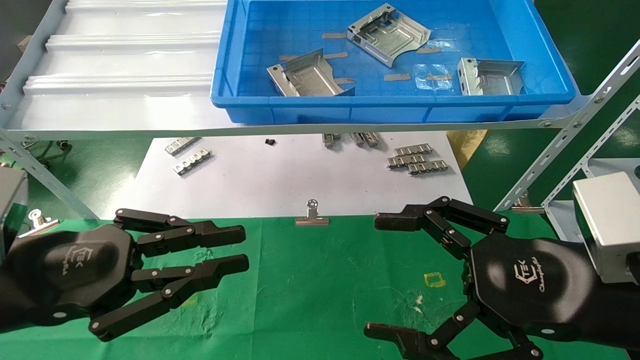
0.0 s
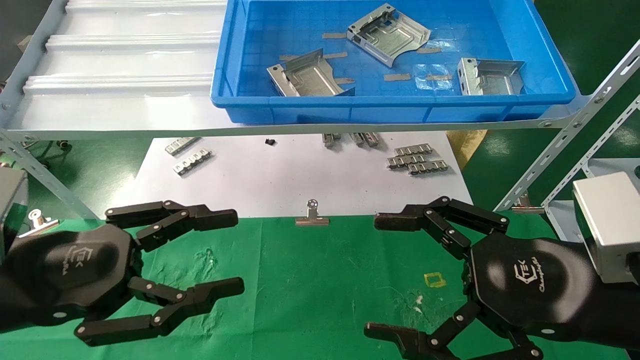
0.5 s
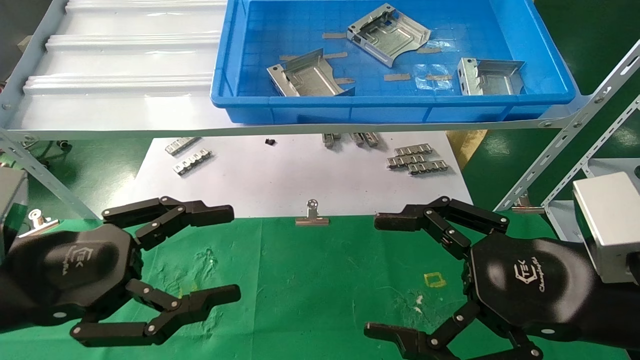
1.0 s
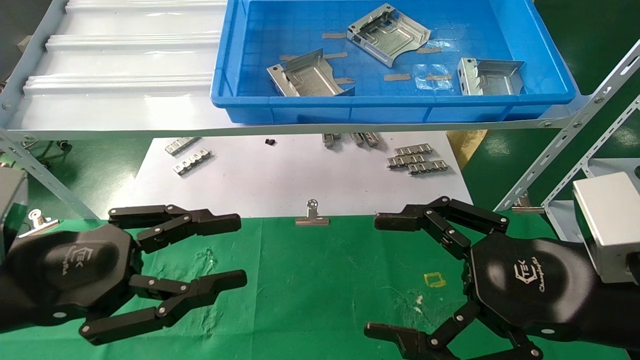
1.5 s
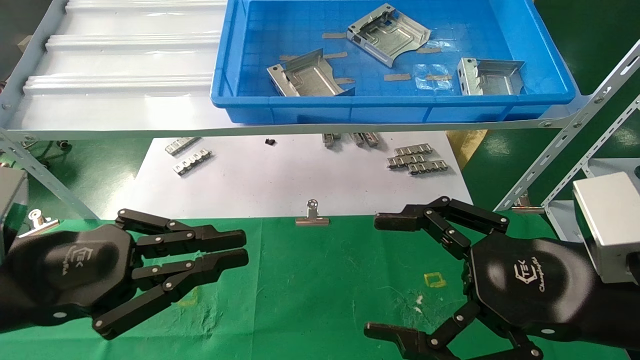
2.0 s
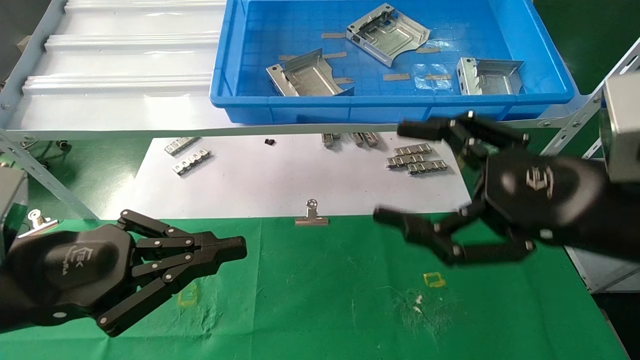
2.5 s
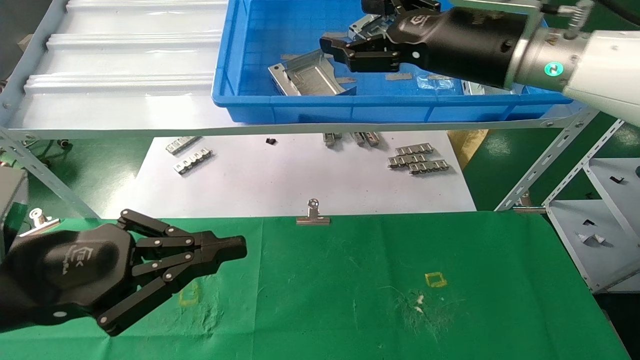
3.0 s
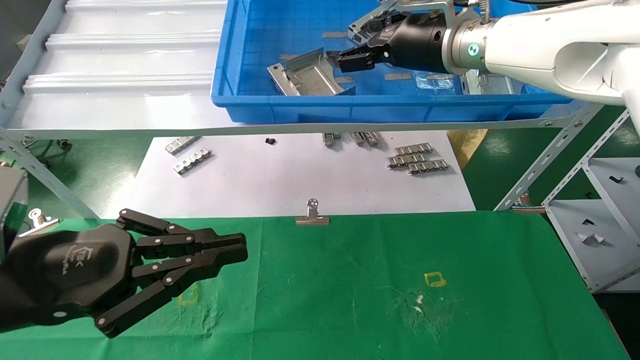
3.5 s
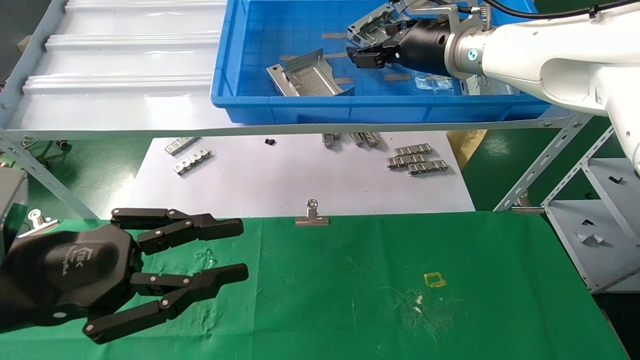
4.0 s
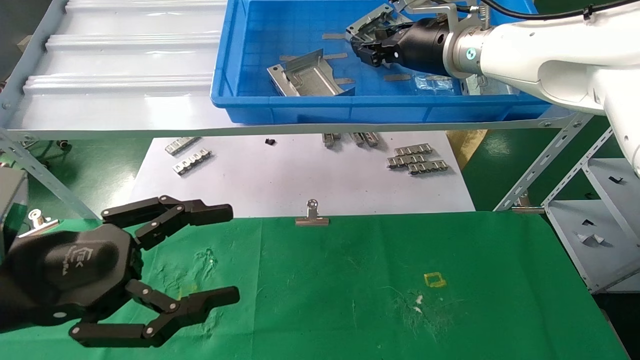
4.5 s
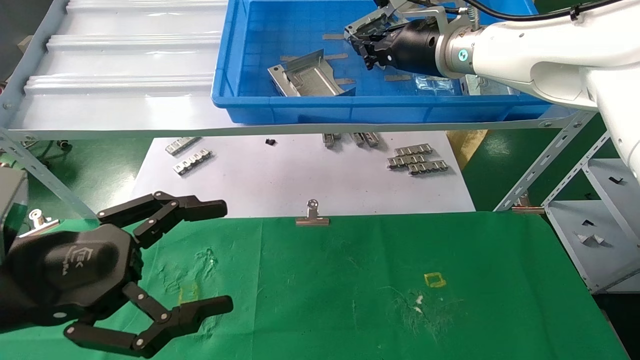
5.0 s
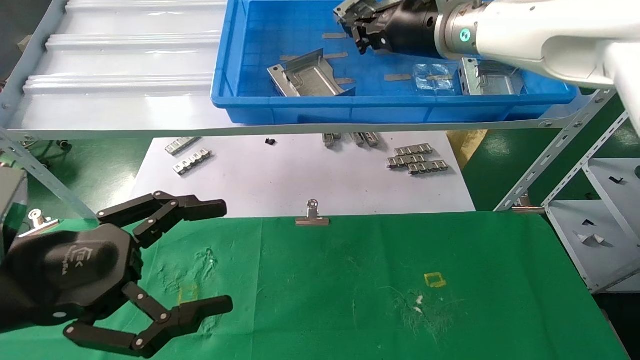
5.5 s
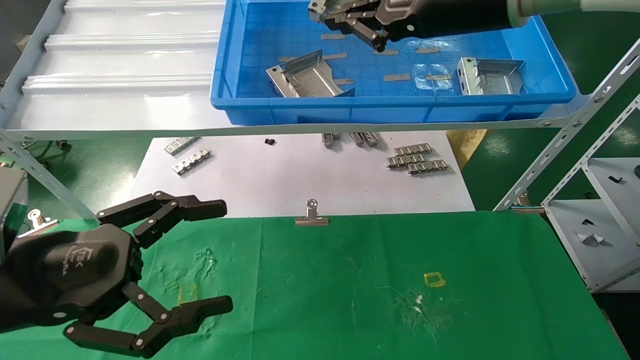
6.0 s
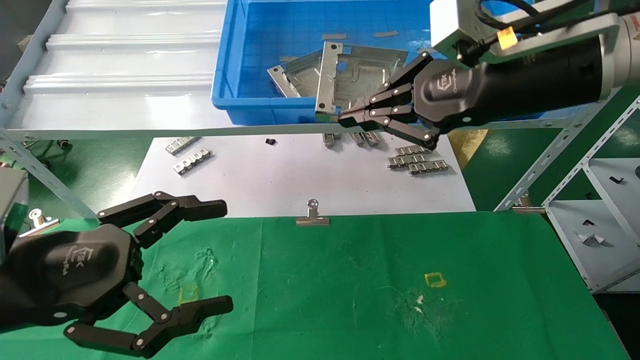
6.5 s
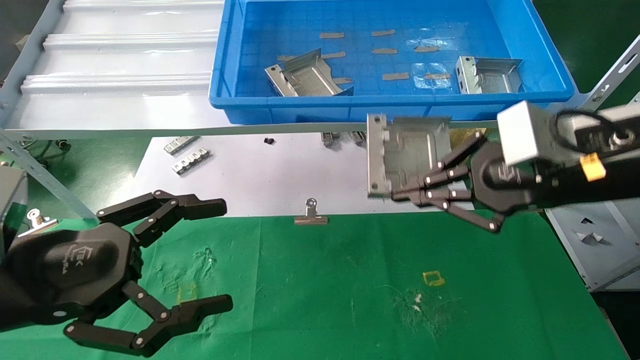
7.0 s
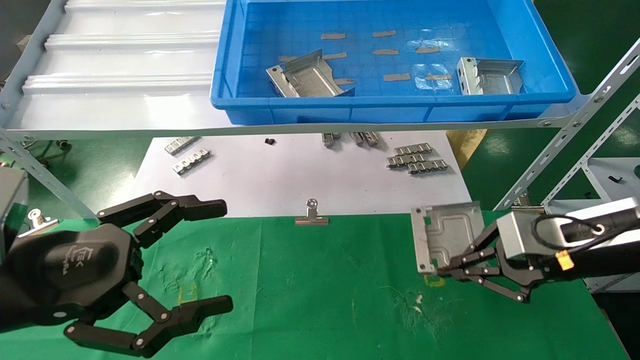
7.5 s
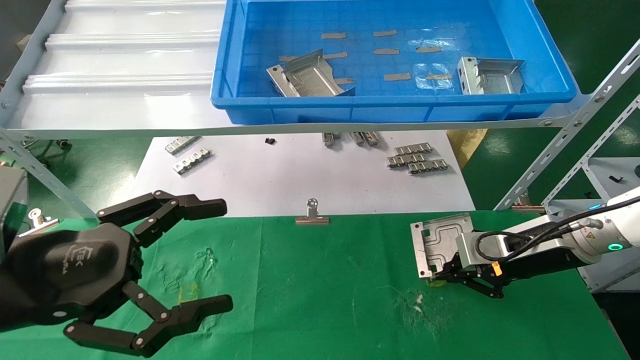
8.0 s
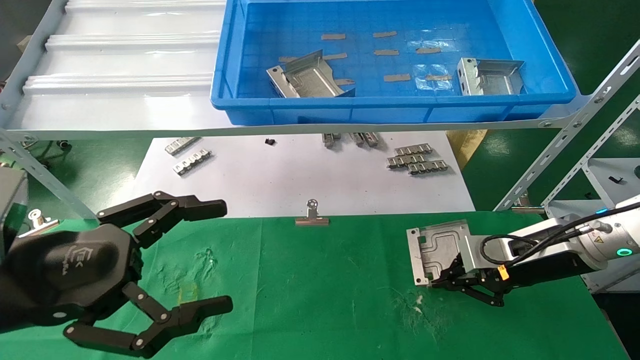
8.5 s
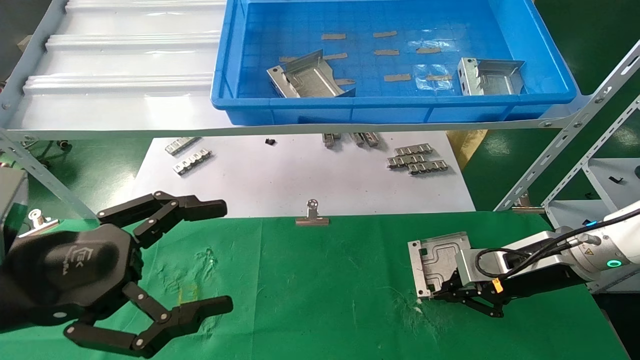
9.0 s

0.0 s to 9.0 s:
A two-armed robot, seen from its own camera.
Task of the whole recording: use the mechanical arm to pick up the parts and place them on the table.
Step, 1.5 to 6.0 s: Pick up the hard drive bracket from the feeding area.
0.0 to 2.0 s: The left gripper opens, then closes once more.
2.0 to 4.5 s: The left gripper opens up. Meanwhile the right gripper travels forward and upward by some 30 cm, and closes.
4.5 to 7.0 s: The right gripper shifts approximately 25 cm backward, to the right and downward, and closes its fingers.
7.0 to 9.0 s: The right gripper is displaced downward and forward by approximately 20 cm.

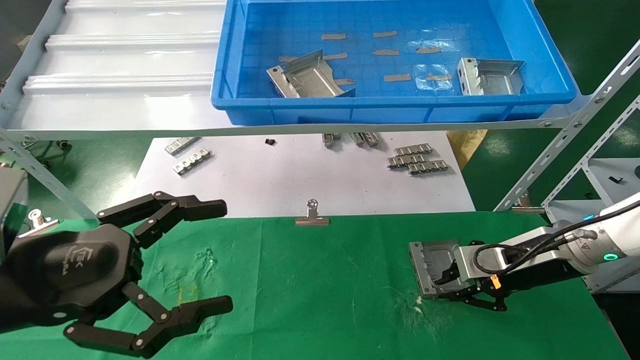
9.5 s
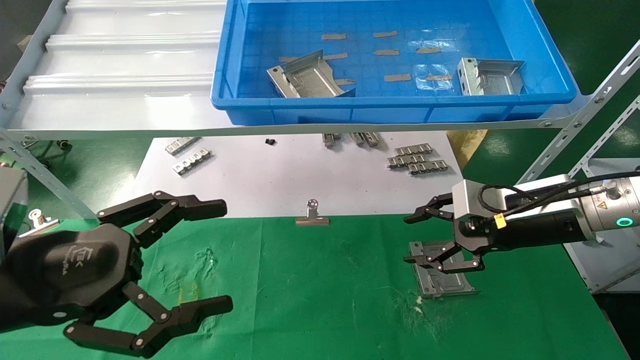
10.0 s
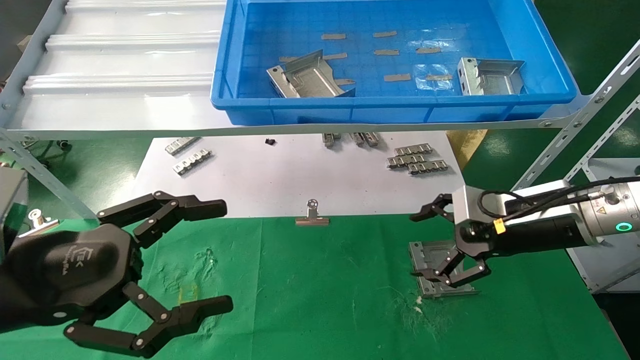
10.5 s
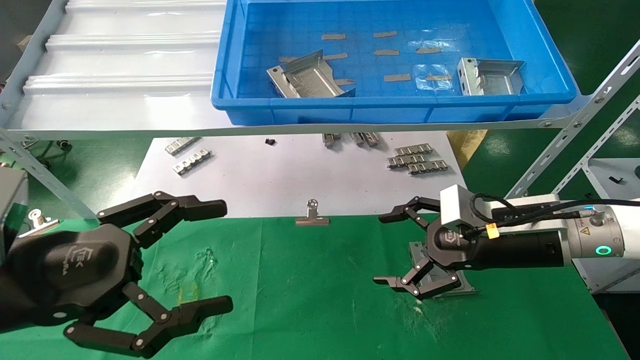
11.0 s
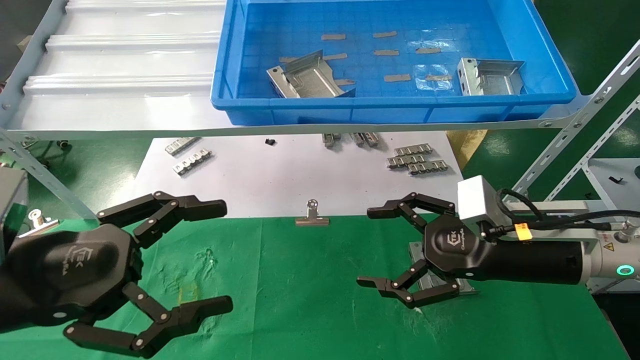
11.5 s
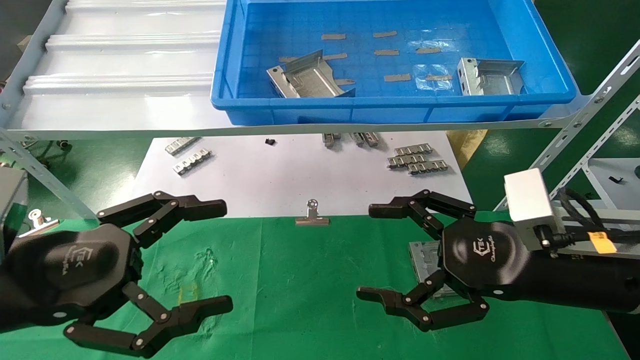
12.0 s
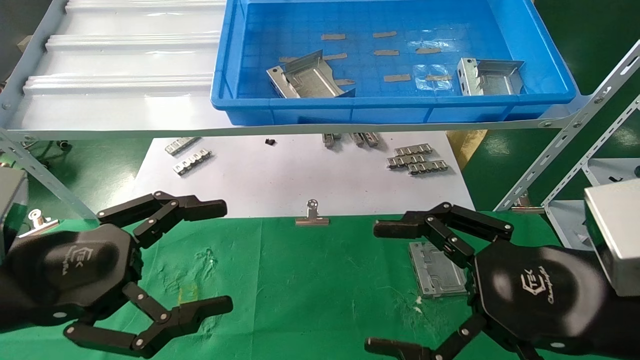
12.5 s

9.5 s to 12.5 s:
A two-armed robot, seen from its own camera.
Task of the whole recording: use the mechanical arm to pick up the parts and place them on the table.
9.5 to 11.0 s: The right gripper ends up approximately 5 cm from where it was, and opens its fingers.
11.0 to 12.5 s: The right gripper travels backward by roughly 15 cm.

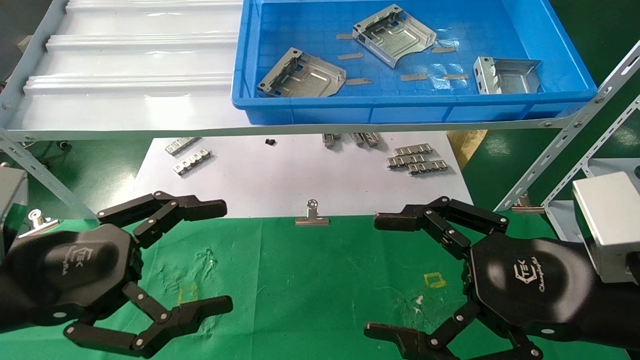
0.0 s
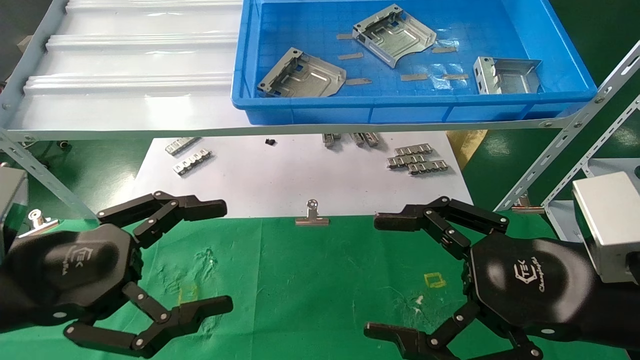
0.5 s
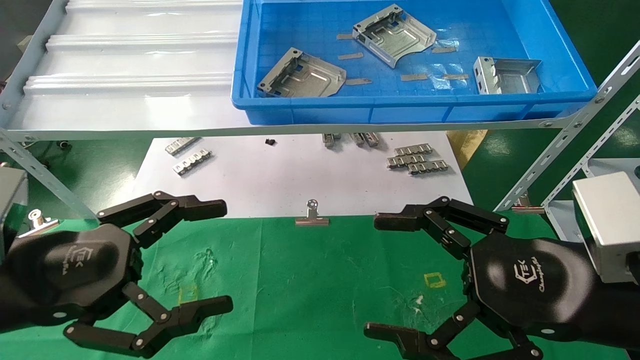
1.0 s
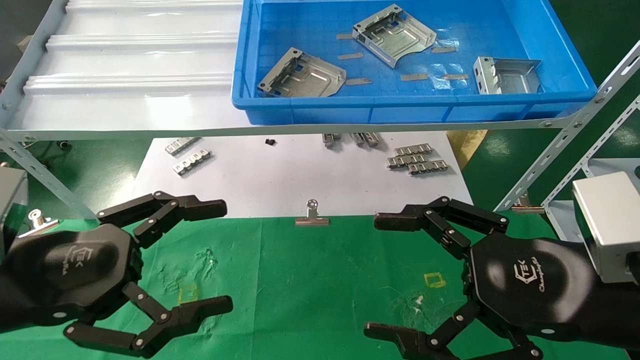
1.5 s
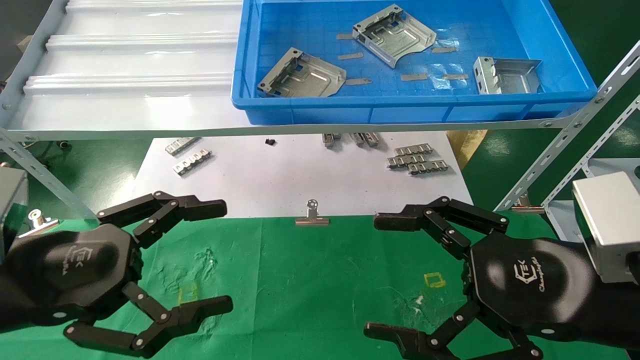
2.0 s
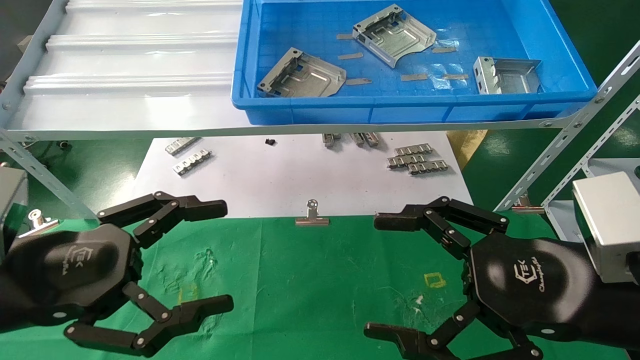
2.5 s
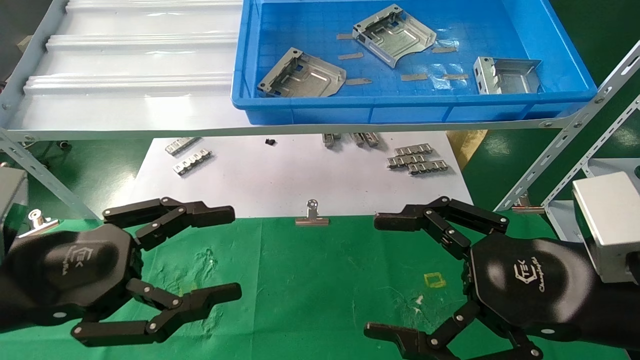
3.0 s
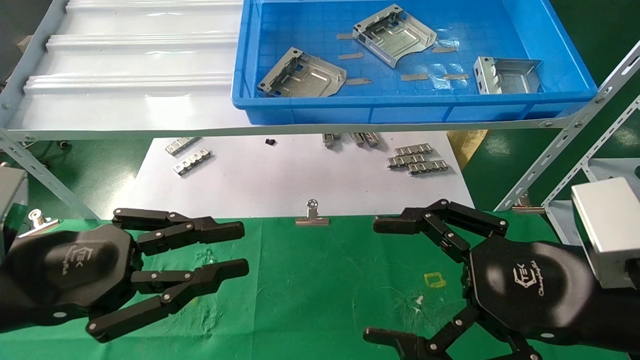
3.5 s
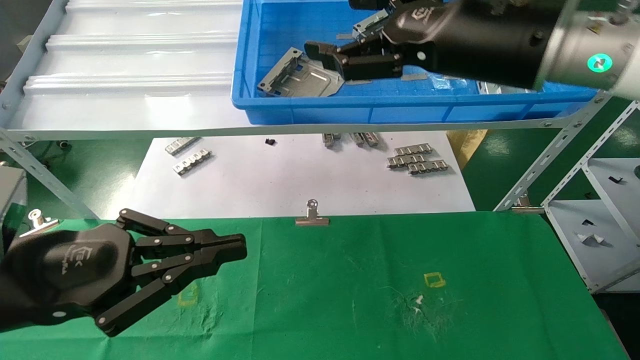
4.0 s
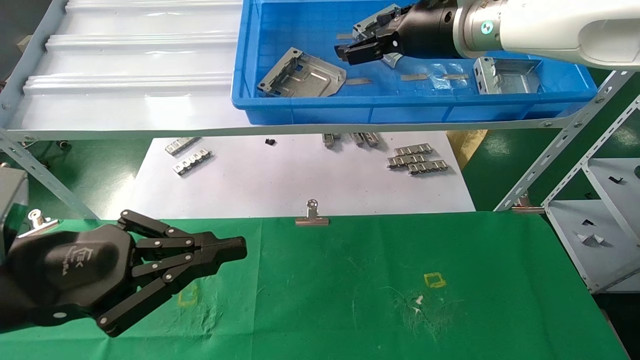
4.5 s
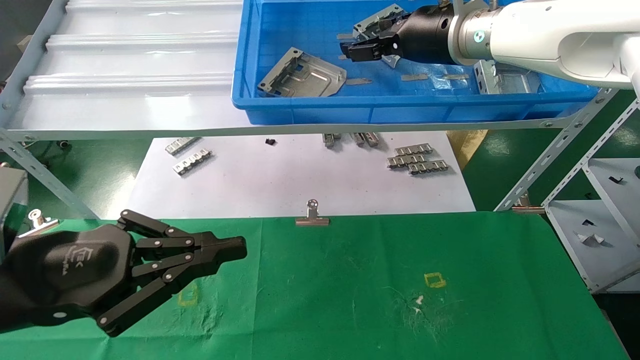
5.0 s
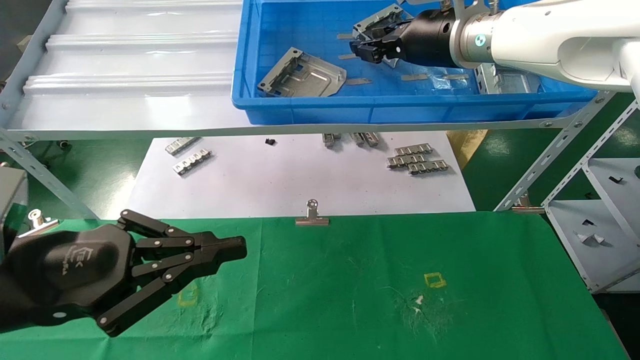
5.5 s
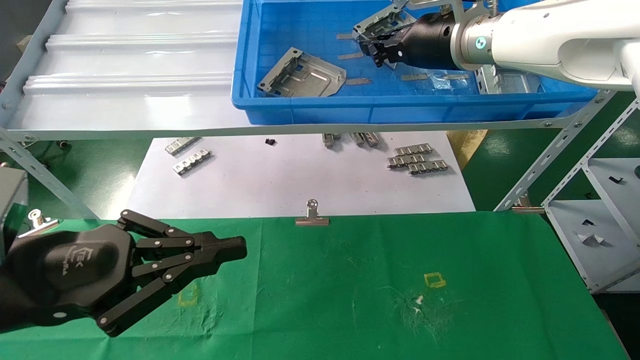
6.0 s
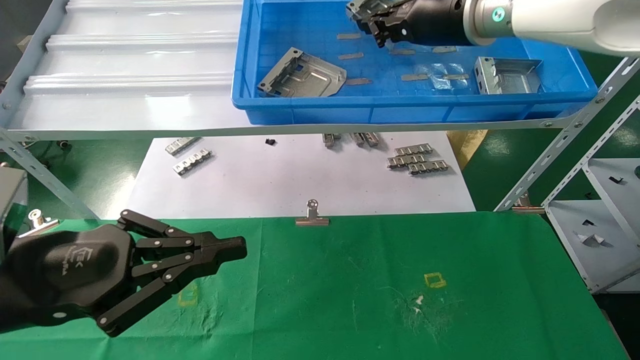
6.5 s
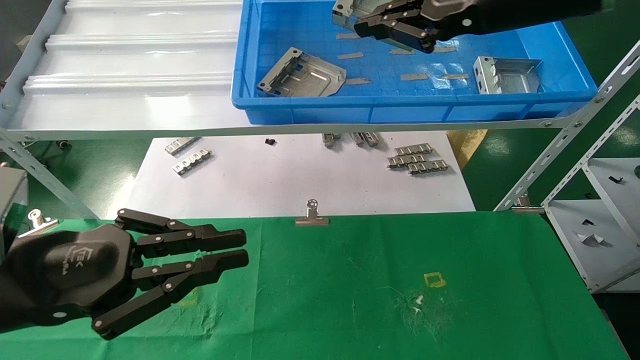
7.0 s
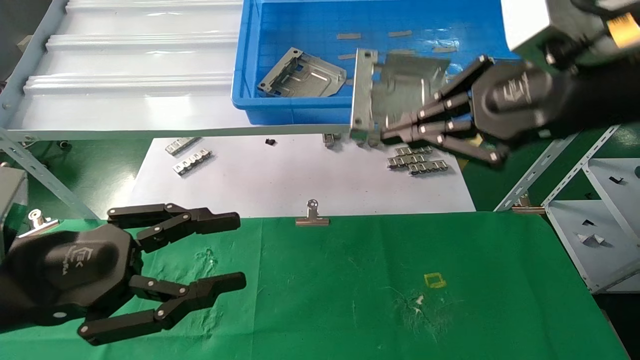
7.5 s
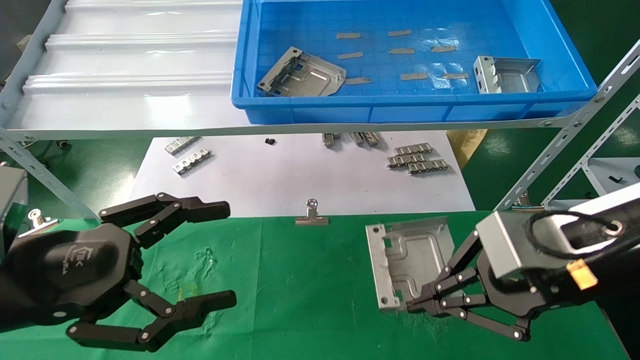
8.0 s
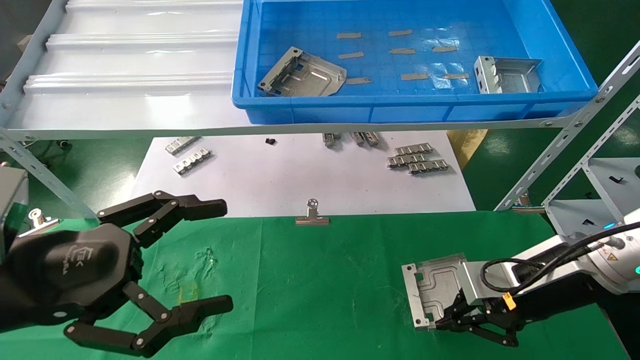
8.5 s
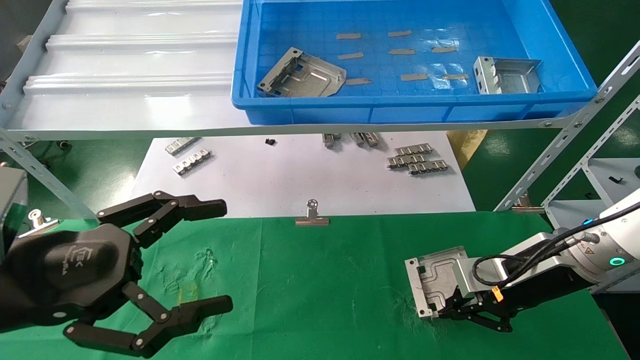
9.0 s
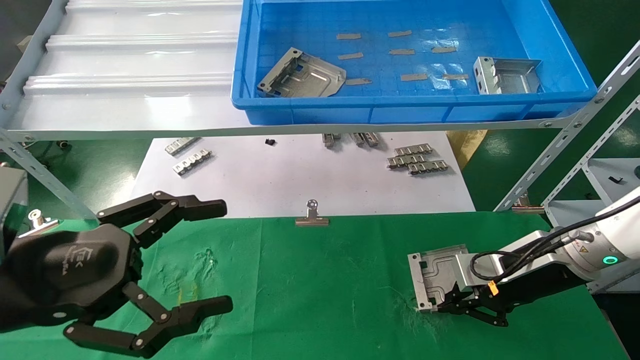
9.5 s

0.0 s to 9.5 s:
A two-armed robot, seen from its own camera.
Task of the whole recording: use the mechanical arm to pick up the parts and place them on the table.
Step, 3.0 to 7.0 s: Pick up the hard drive bracket from the feeding area.
0.0 to 2.0 s: Both grippers stay put.
2.0 to 4.0 s: The left gripper closes up. Meanwhile the right gripper shifts approximately 20 cm upward and forward.
4.0 to 5.5 s: The right gripper is displaced forward by some 10 cm, and closes.
5.5 to 7.5 s: The right gripper is displaced backward by about 20 cm, and closes its fingers.
7.5 to 9.5 s: The right gripper moves downward and forward, some 25 cm; the left gripper opens its fingers.
